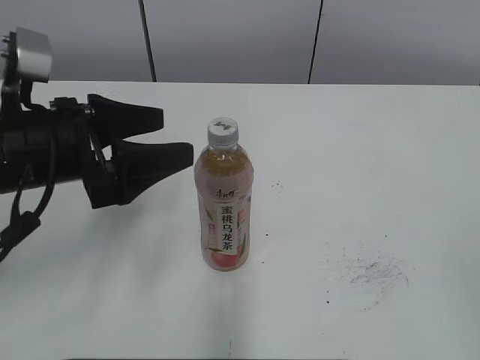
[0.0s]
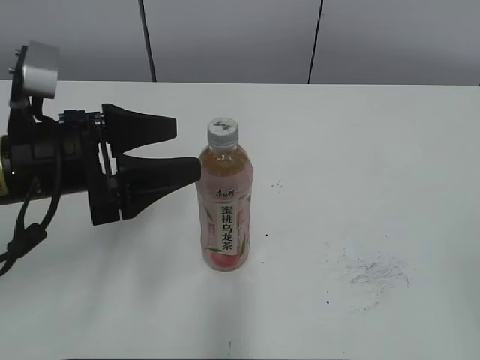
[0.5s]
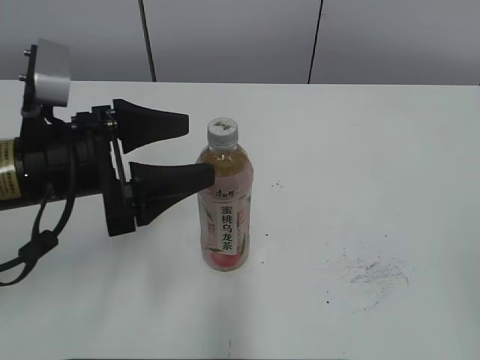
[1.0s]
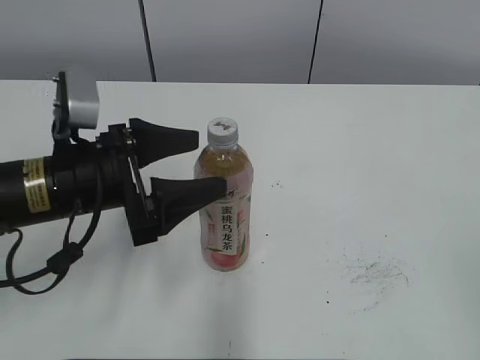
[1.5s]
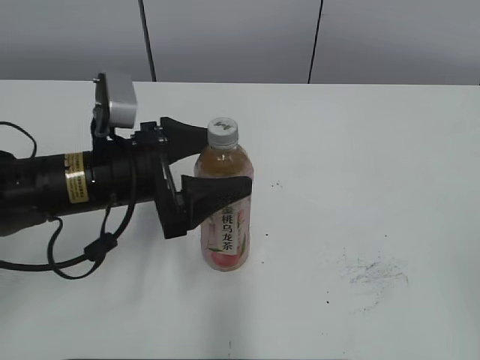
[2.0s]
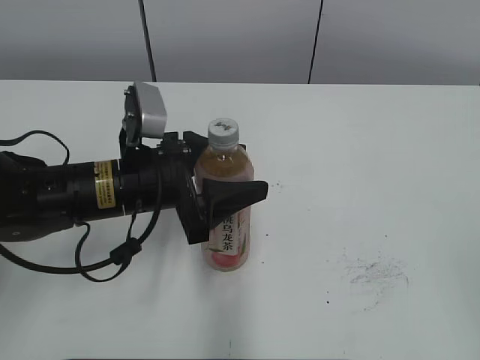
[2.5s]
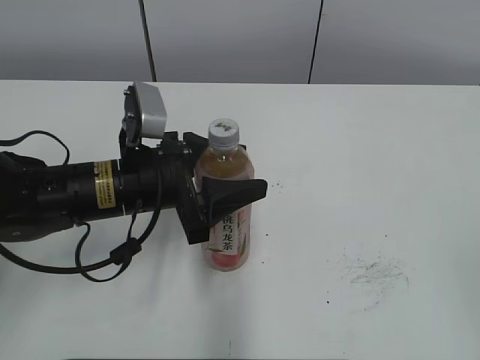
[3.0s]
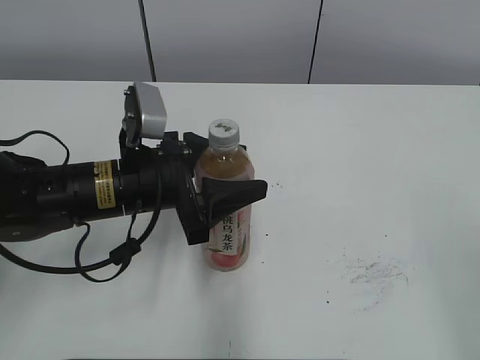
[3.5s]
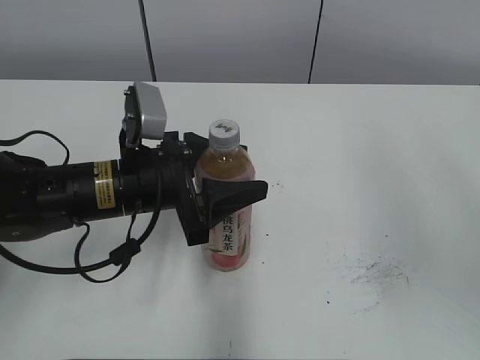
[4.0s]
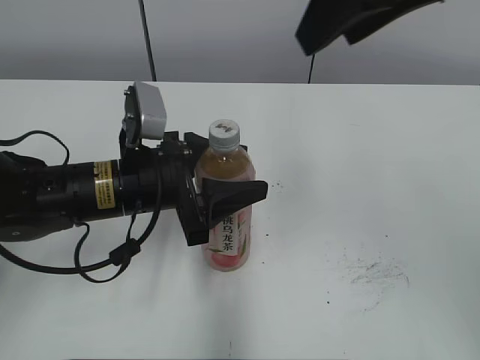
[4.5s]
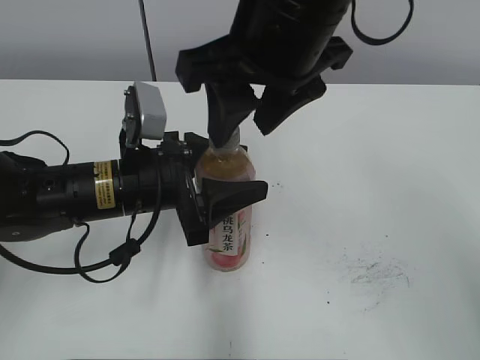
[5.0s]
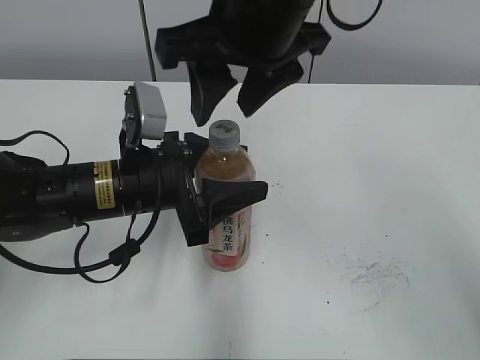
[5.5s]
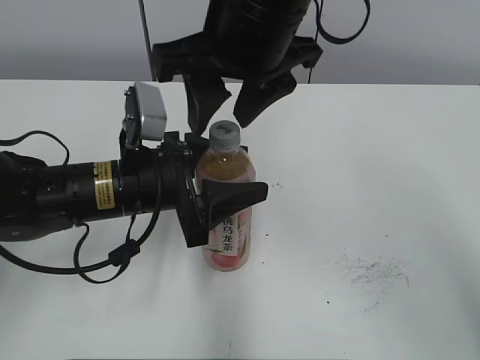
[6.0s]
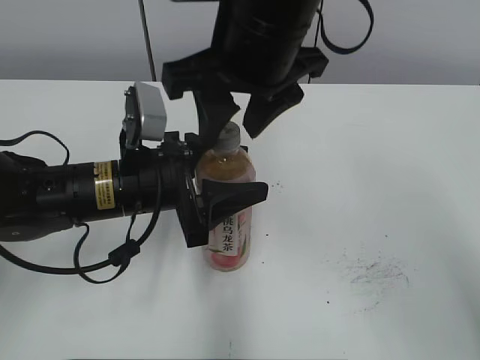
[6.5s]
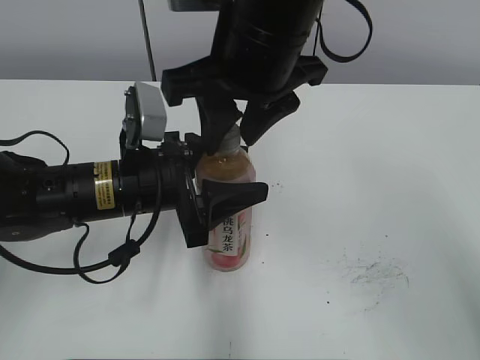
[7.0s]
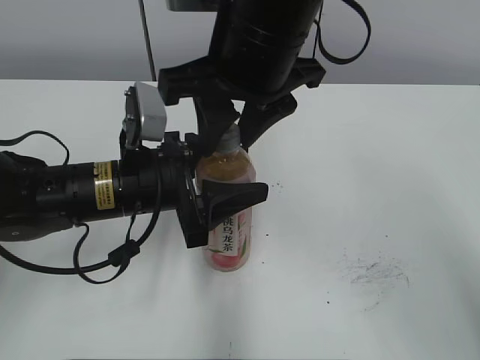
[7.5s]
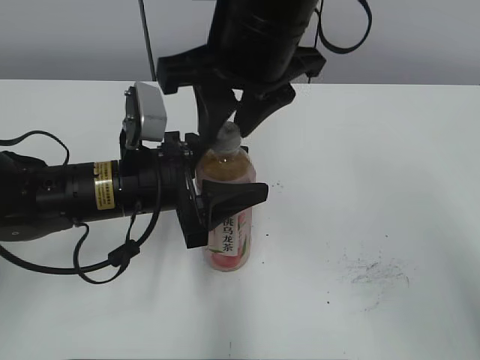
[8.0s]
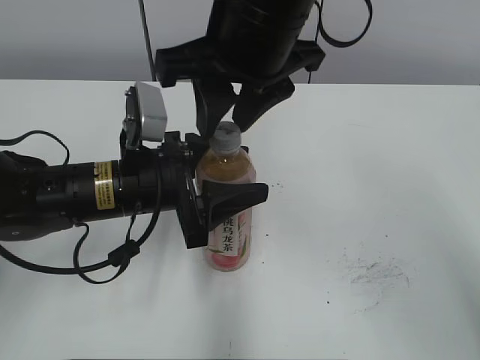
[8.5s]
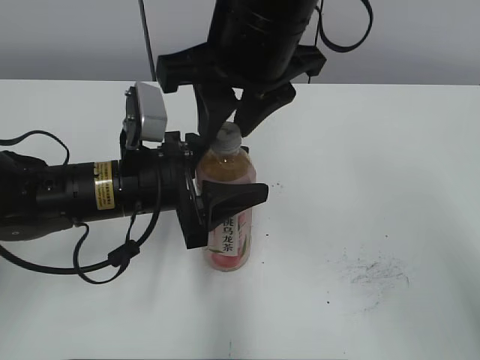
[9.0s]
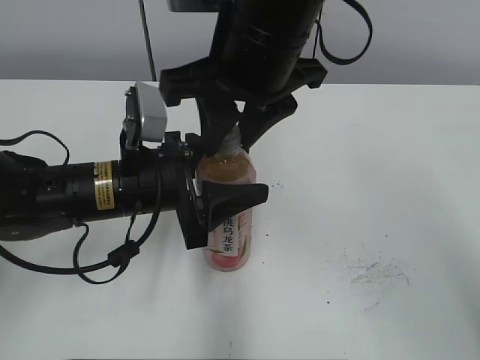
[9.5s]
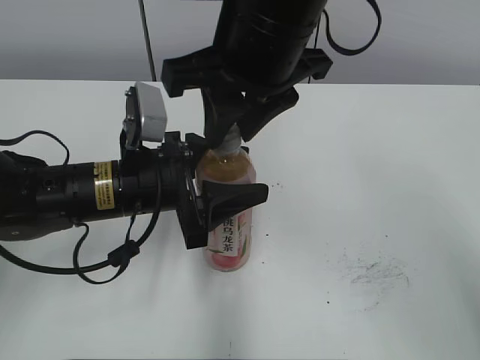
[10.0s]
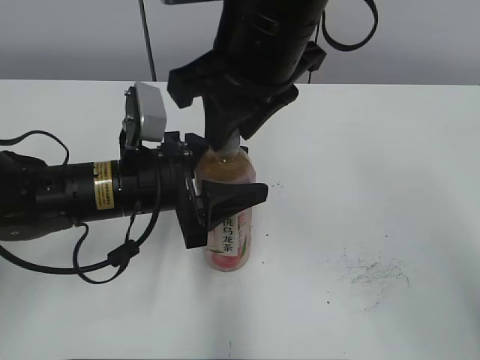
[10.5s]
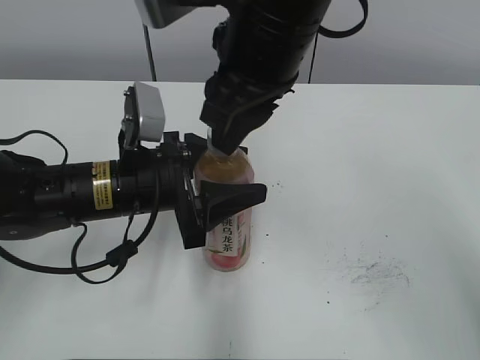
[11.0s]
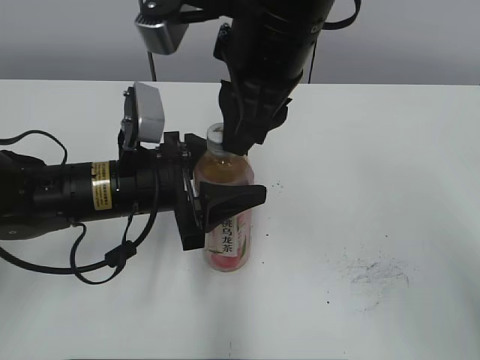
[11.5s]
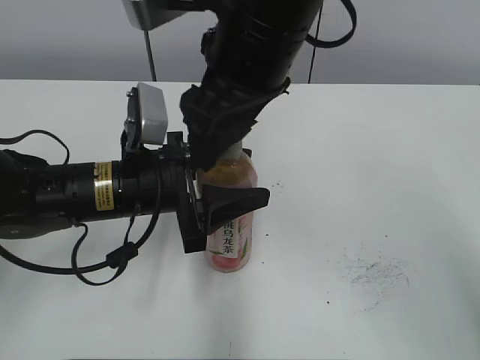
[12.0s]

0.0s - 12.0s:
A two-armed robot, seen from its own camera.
Step, 0.0s - 5.5s: Grab the Peach Oolong Tea with the left hand.
0.0s - 2.0s: The left gripper moves approximately 5 cm.
2.0s - 4.0s: The right gripper goes roughly 20 cm forward and upward. Meanwhile the left gripper closes up.
4.0s - 6.0s: The right gripper travels to the left and forward by some 25 cm.
6.0s - 8.0s: The grippers move only a little.
8.0s - 10.0s: Neither gripper changes place.
10.0s - 12.0s: The right gripper opens up.

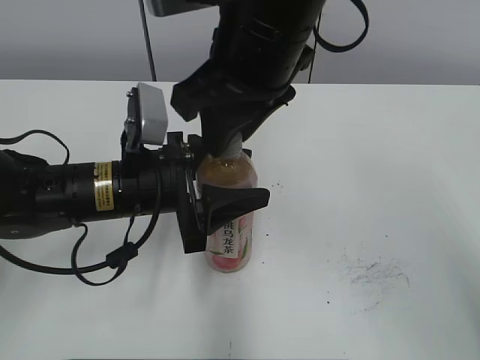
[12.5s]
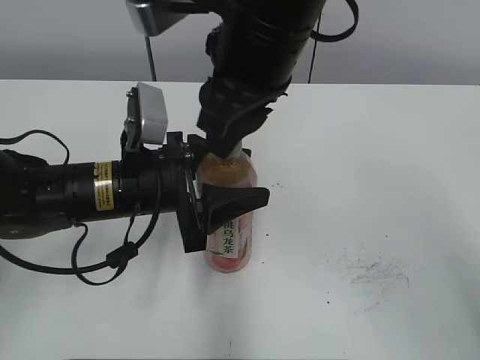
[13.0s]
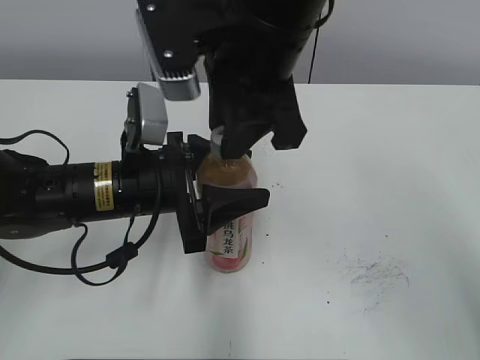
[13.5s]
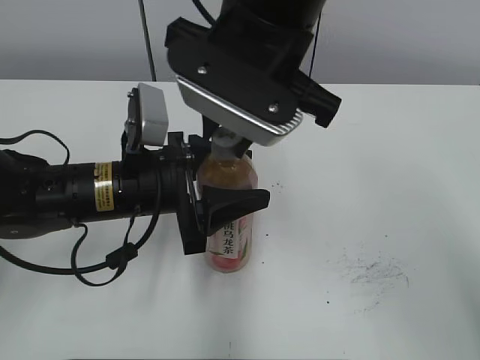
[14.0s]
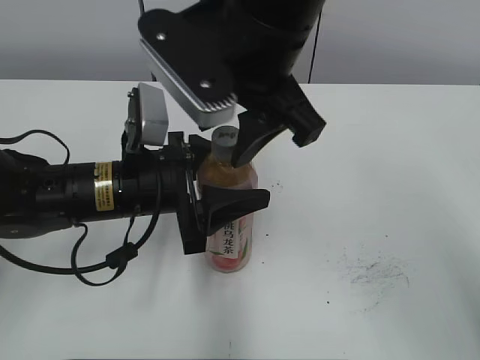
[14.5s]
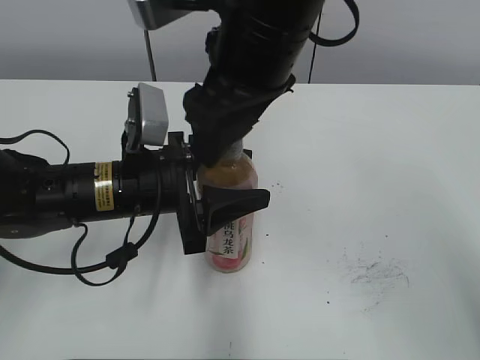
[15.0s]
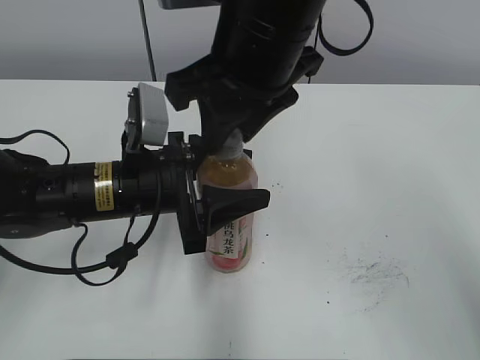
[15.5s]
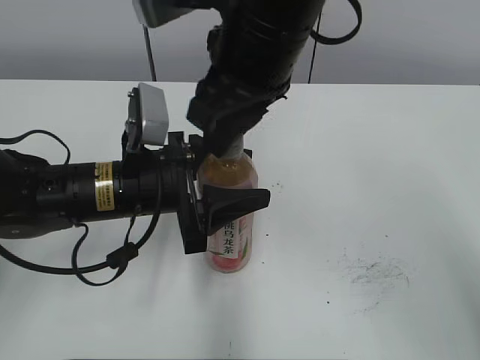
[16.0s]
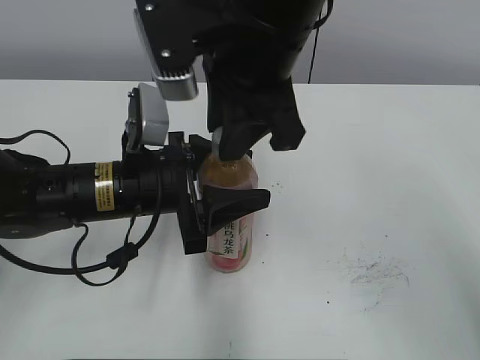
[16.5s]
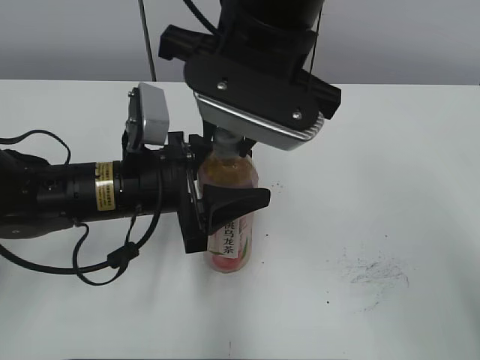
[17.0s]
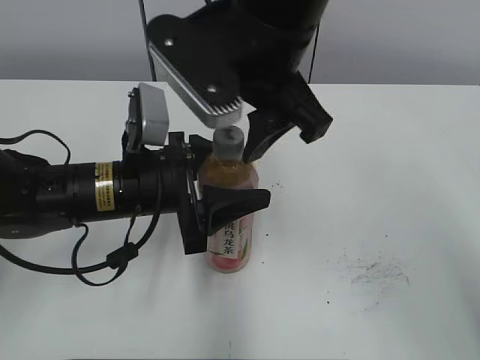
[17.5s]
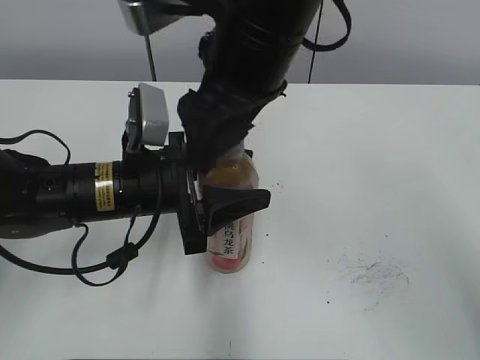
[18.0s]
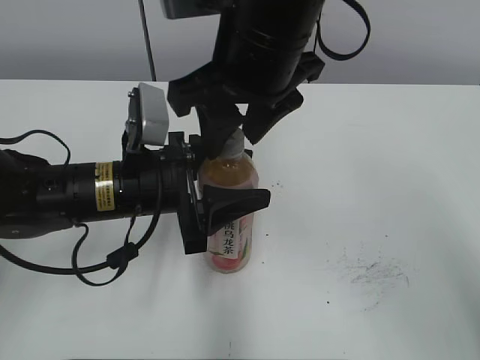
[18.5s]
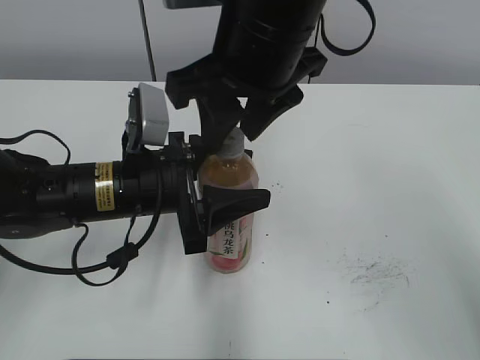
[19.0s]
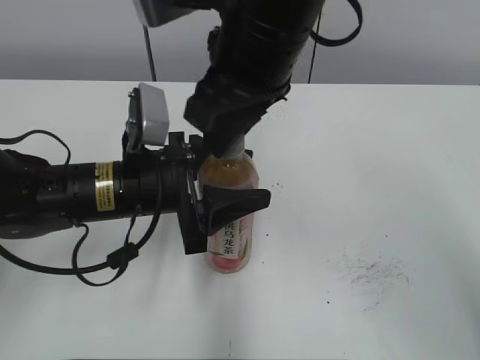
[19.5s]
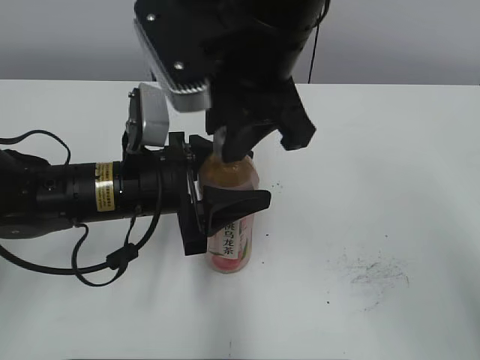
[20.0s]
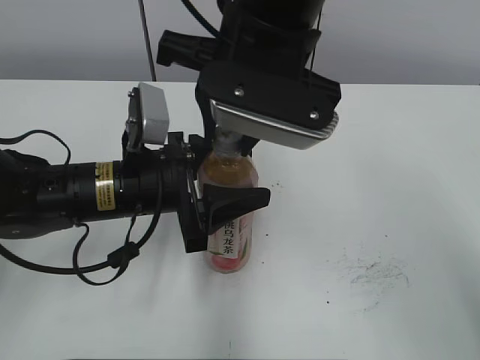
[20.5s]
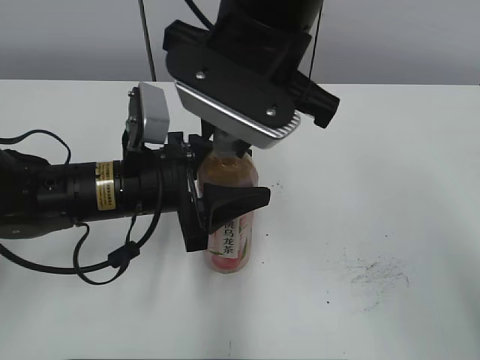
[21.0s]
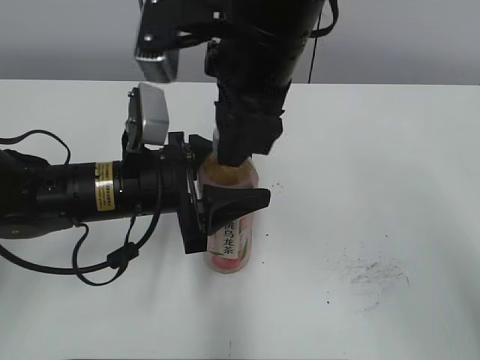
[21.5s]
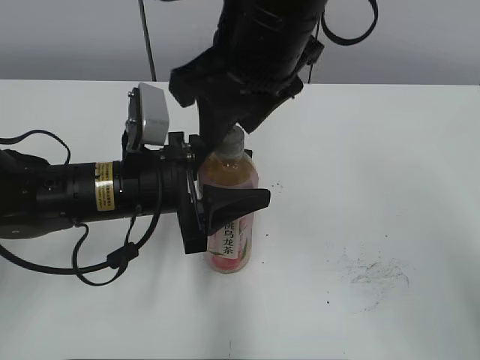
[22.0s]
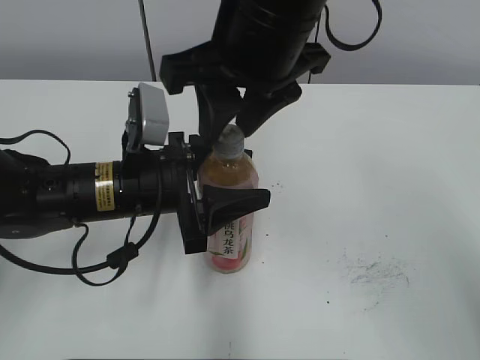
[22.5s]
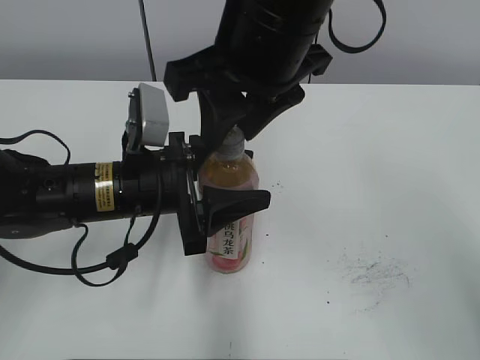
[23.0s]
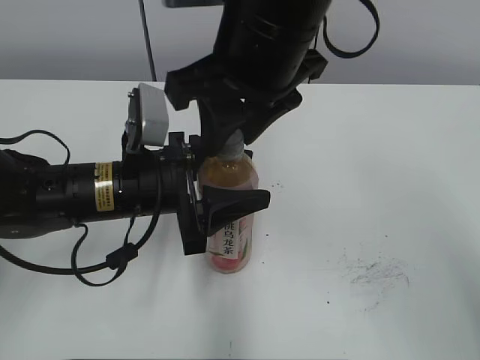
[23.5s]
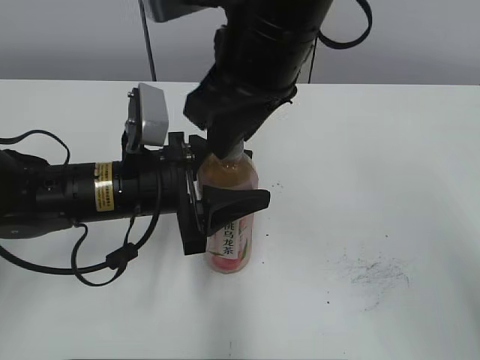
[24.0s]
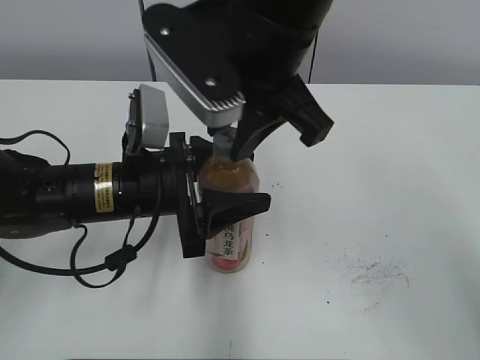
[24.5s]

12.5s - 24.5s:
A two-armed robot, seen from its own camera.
14.5s - 16.5s: The right gripper closes its fingers.
16.5s - 18.5s: The right gripper opens its fingers.
18.5s - 20.5s: The right gripper closes.

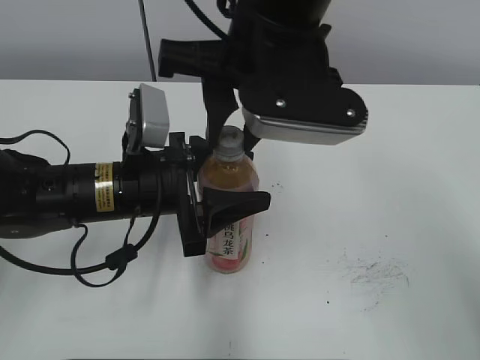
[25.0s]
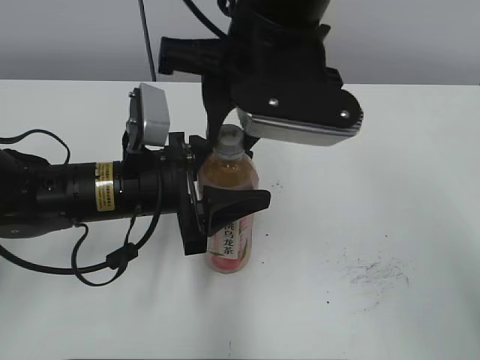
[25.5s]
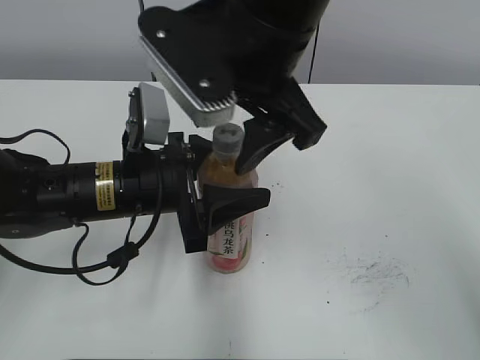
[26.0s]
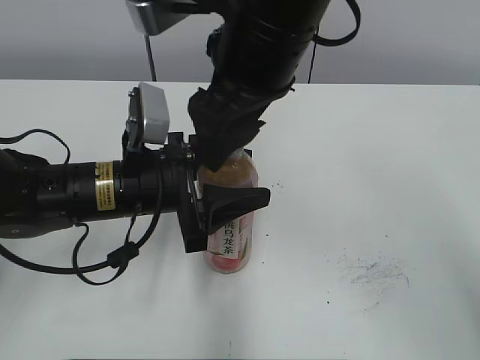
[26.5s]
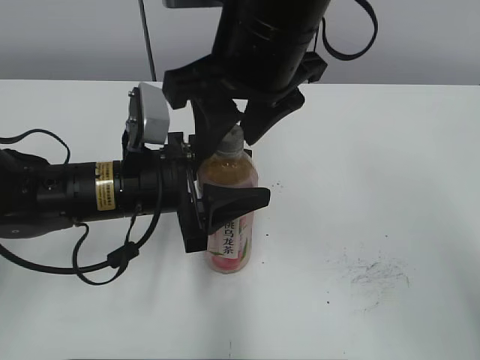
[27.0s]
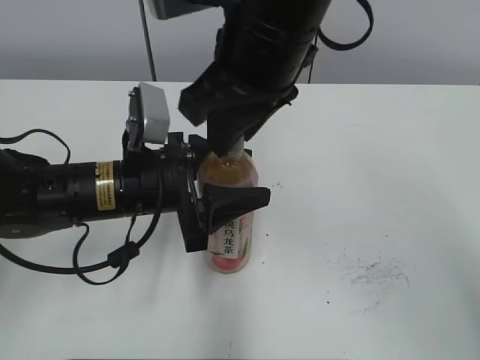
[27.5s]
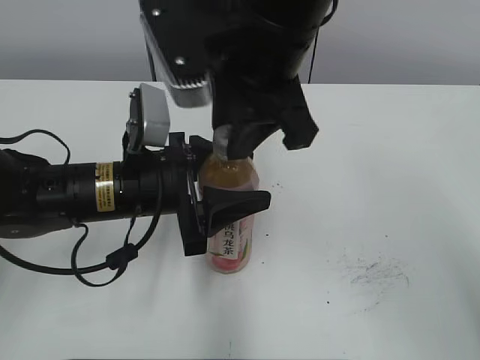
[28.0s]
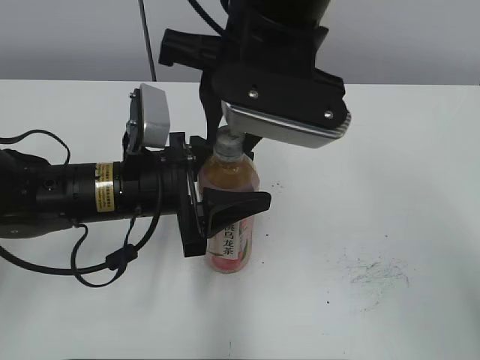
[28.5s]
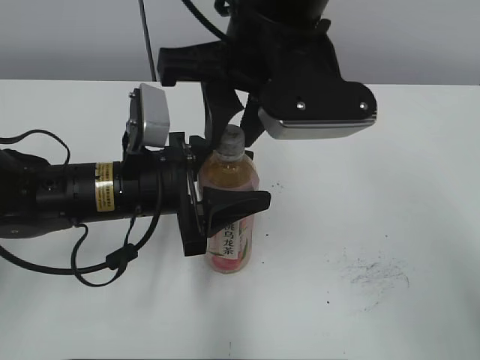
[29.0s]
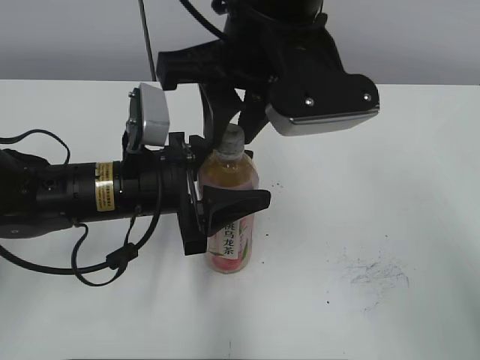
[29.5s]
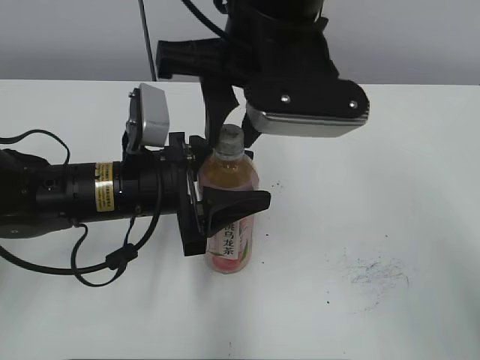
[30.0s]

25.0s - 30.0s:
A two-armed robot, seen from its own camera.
25.0s - 27.5s: The right gripper opens, then closes once more.
